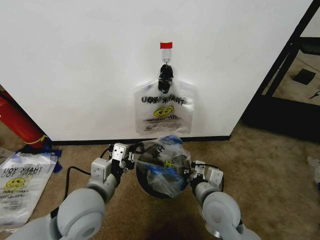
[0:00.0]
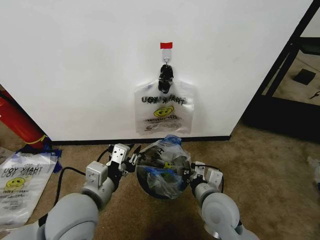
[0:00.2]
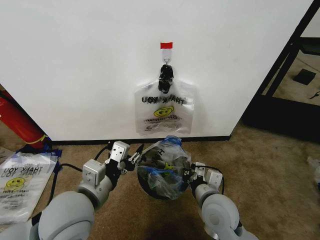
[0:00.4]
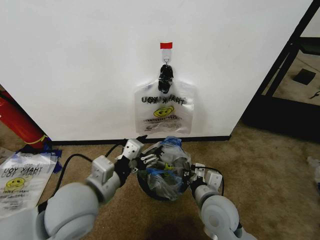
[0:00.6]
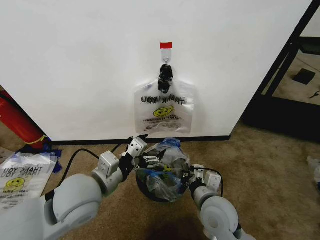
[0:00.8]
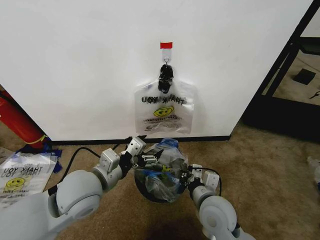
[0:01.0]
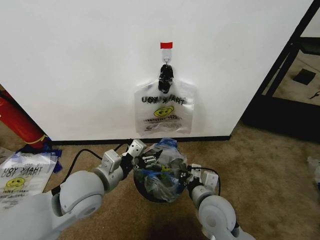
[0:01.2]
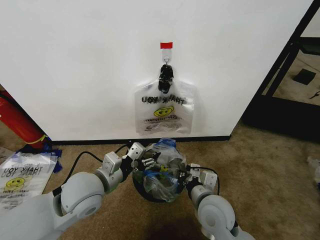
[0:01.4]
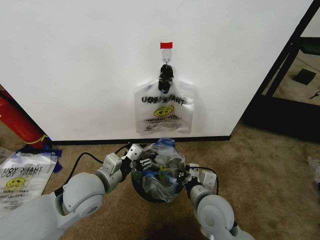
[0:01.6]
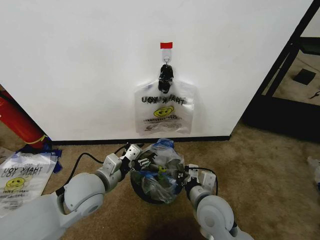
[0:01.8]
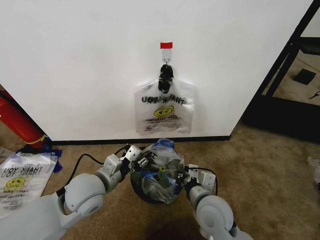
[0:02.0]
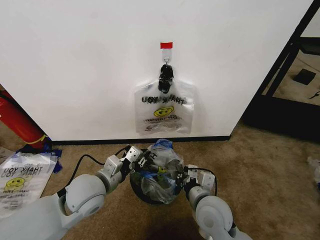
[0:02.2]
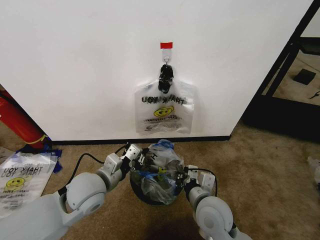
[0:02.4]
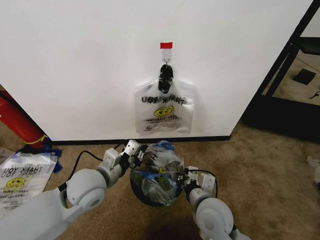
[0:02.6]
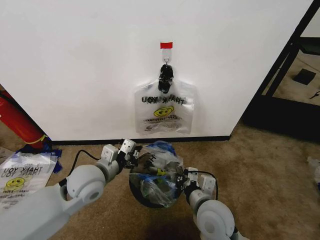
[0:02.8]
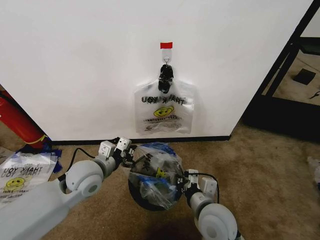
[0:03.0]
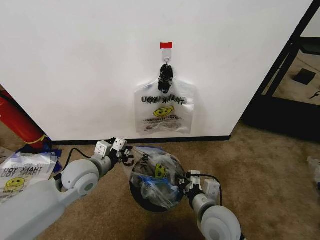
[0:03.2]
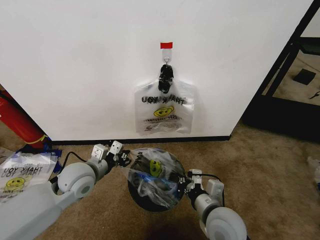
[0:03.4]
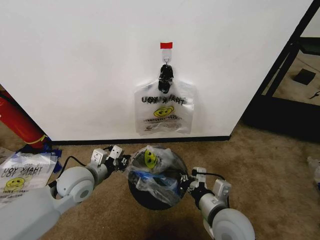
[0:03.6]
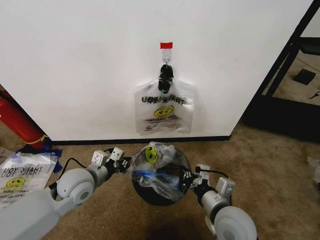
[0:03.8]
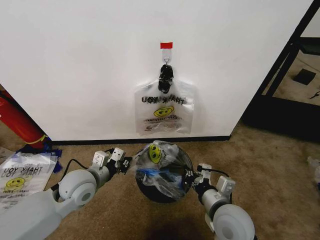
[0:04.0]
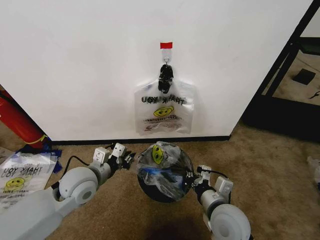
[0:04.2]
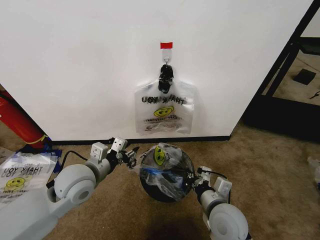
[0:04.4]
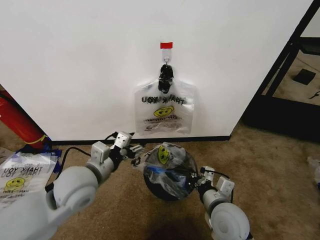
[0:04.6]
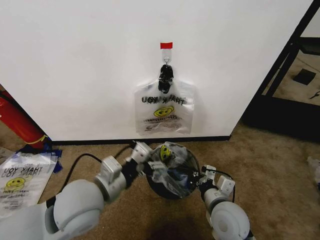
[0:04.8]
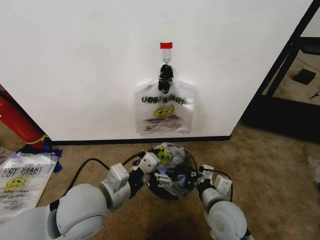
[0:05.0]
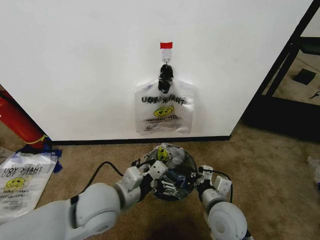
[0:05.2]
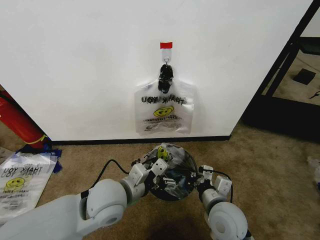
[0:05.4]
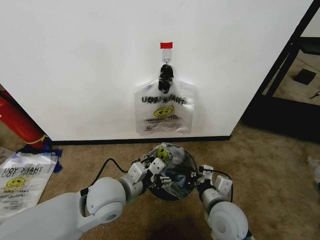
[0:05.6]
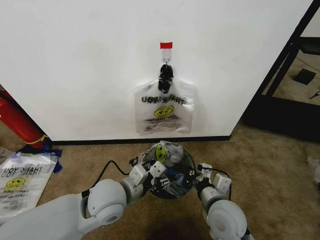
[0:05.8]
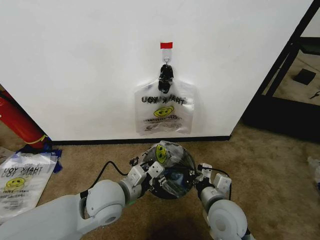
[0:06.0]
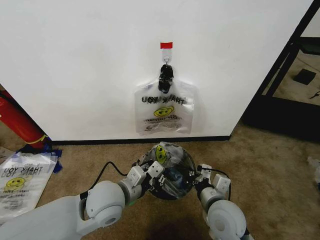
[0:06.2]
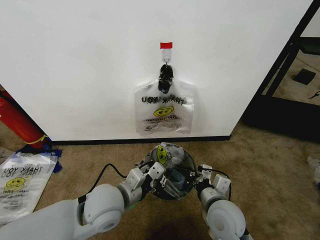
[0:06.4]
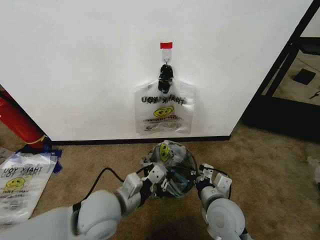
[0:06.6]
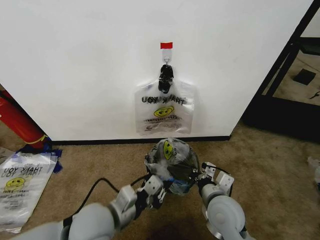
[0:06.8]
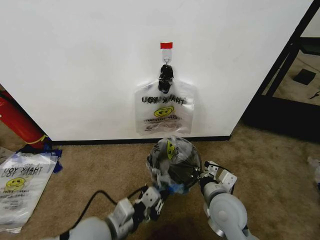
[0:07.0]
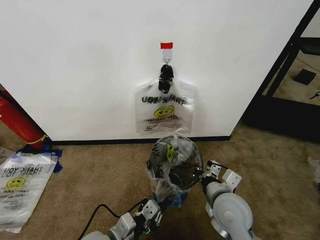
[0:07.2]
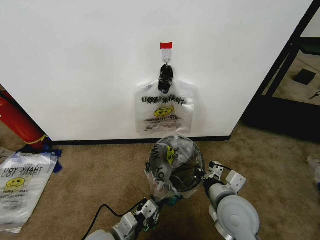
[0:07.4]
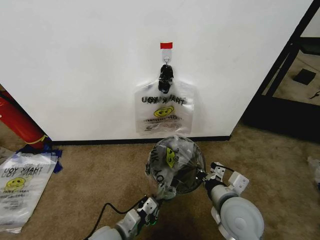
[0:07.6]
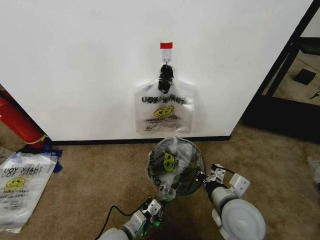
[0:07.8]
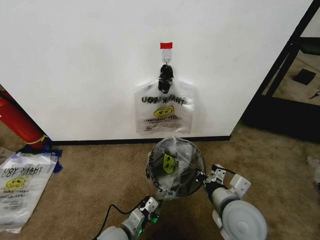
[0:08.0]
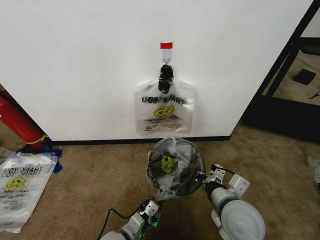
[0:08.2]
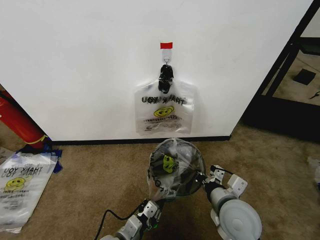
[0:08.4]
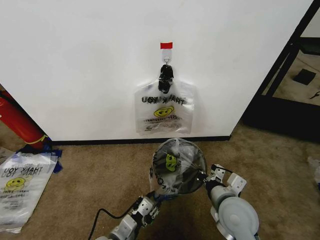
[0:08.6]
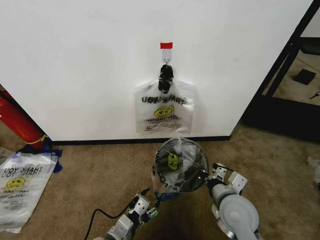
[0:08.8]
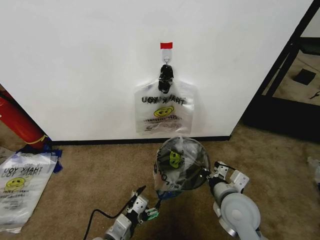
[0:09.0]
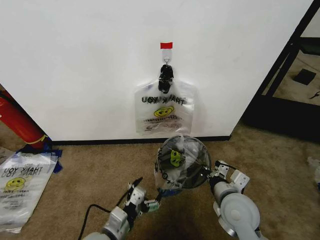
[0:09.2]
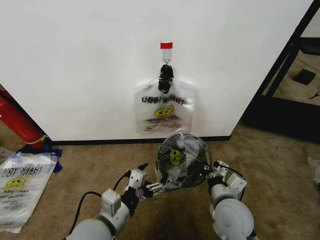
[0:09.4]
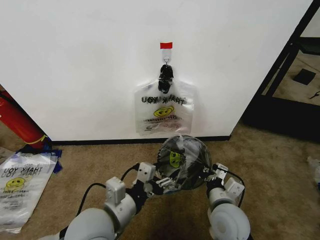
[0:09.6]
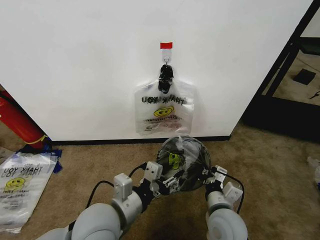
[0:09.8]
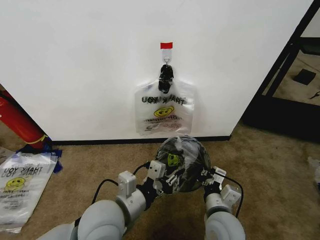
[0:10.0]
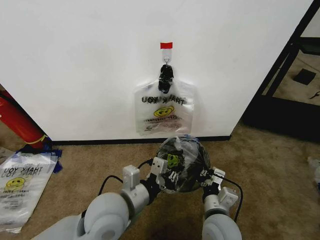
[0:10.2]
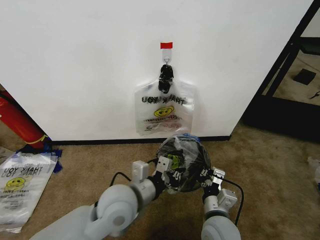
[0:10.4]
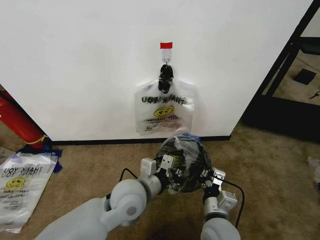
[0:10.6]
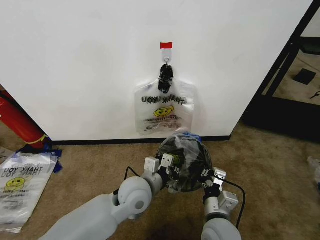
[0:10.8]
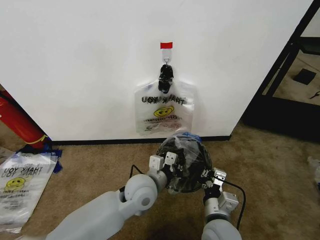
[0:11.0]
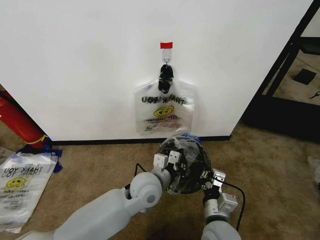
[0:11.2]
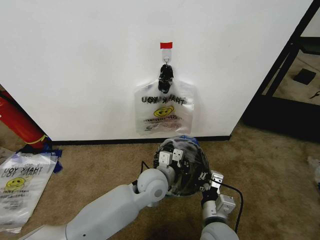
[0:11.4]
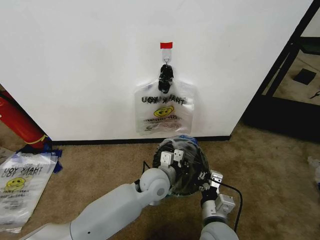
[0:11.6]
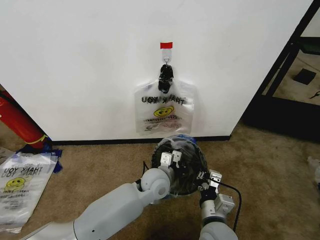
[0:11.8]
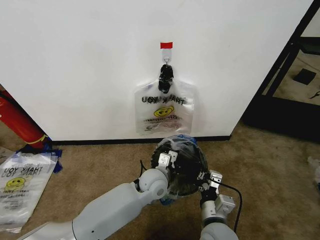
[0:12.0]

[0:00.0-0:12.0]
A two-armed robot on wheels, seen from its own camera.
Task of the whole recording: Pick up the garbage bag from the wall and place it over the trash bin.
0:00.0 to 0:01.6: The left gripper travels forward by some 5 cm, and opens.
0:01.6 to 0:03.0: The left gripper moves forward, approximately 5 cm, and closes up.
0:03.0 to 0:04.4: The left gripper opens up.
0:04.4 to 0:06.0: The left gripper is displaced to the right by about 10 cm, and opens, then closes once more.
0:06.0 to 0:07.6: The left gripper is displaced downward and backward by approximately 15 cm.
0:07.6 to 0:09.0: The left gripper opens its fingers.
0:09.0 to 0:10.4: The left gripper moves upward, forward and to the right, roughly 15 cm, and closes, while the right gripper moves to the left, about 5 cm.
0:10.4 to 0:12.0: The left gripper moves forward, downward and to the right, some 15 cm.

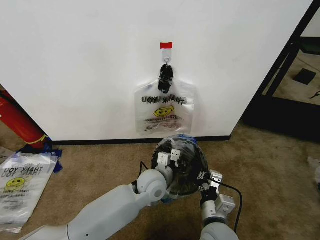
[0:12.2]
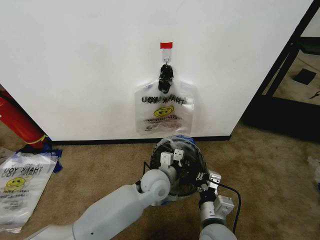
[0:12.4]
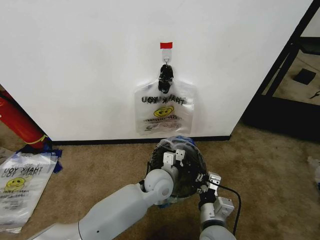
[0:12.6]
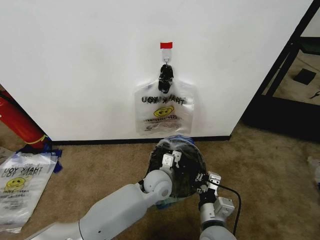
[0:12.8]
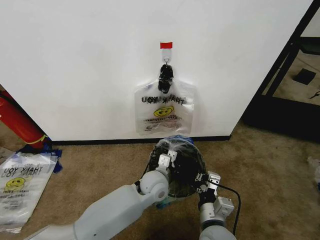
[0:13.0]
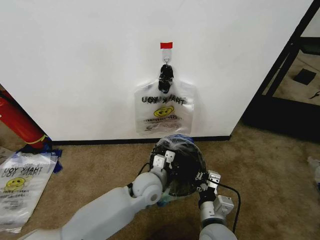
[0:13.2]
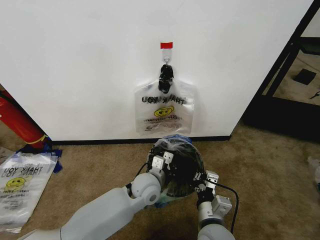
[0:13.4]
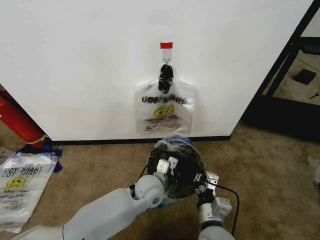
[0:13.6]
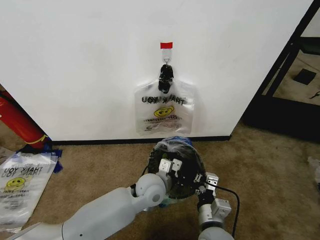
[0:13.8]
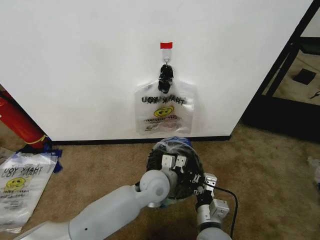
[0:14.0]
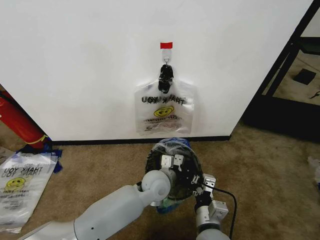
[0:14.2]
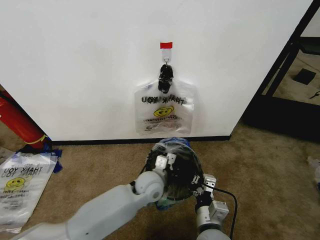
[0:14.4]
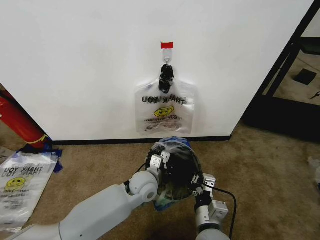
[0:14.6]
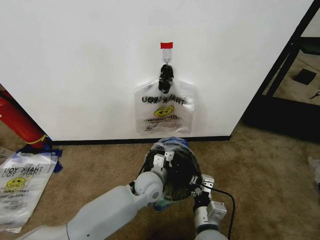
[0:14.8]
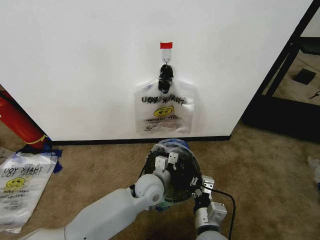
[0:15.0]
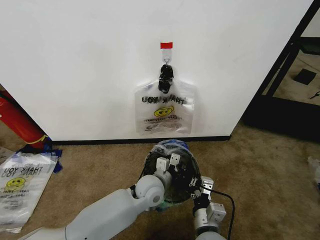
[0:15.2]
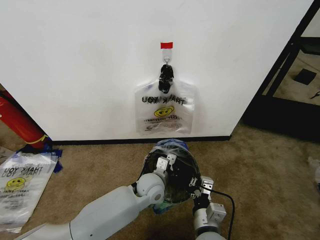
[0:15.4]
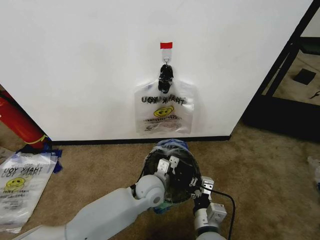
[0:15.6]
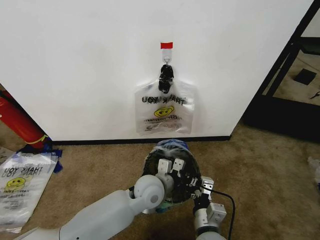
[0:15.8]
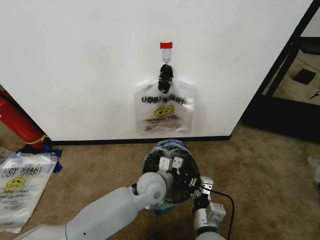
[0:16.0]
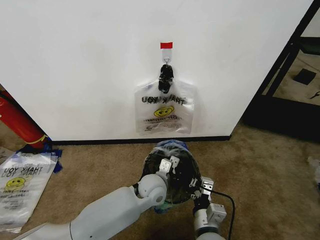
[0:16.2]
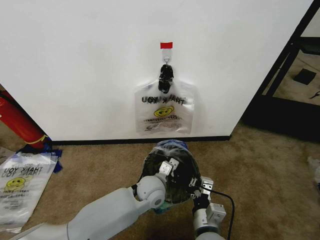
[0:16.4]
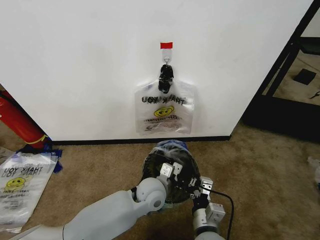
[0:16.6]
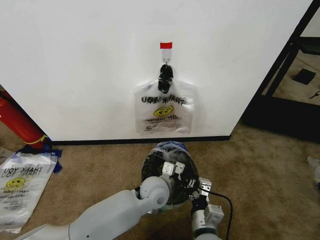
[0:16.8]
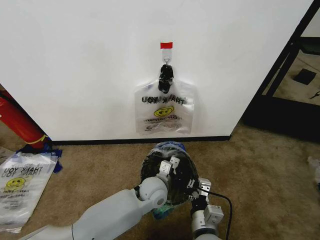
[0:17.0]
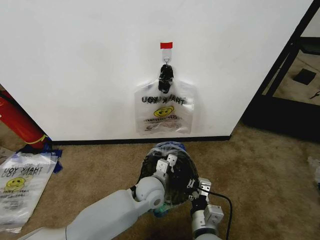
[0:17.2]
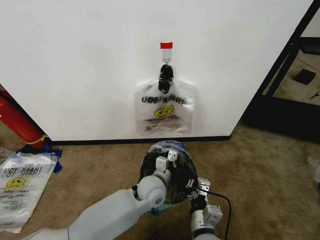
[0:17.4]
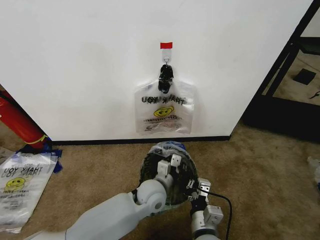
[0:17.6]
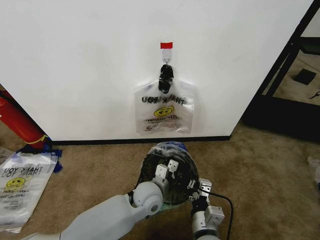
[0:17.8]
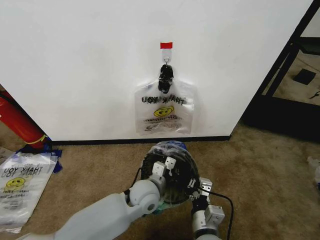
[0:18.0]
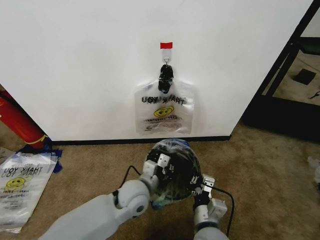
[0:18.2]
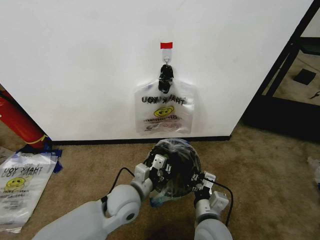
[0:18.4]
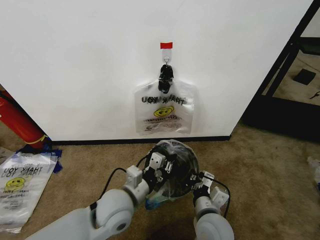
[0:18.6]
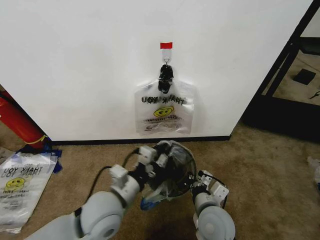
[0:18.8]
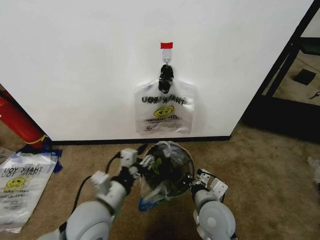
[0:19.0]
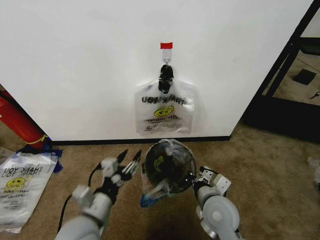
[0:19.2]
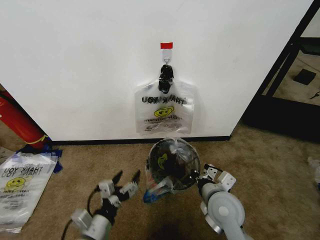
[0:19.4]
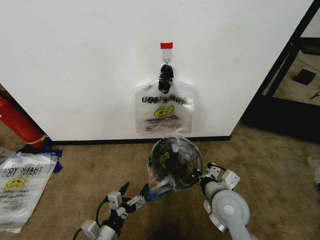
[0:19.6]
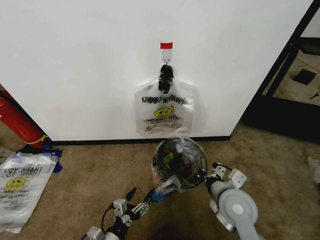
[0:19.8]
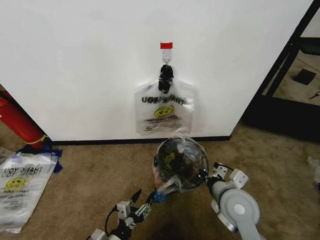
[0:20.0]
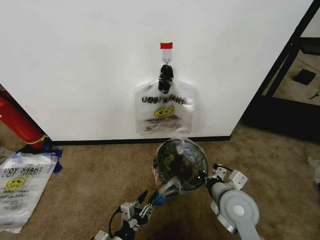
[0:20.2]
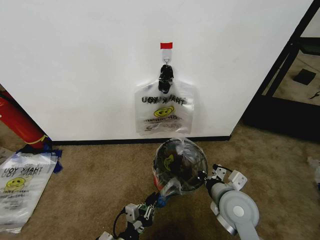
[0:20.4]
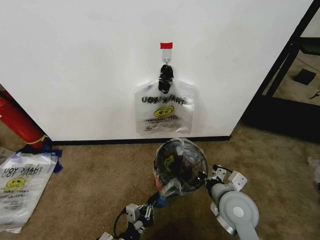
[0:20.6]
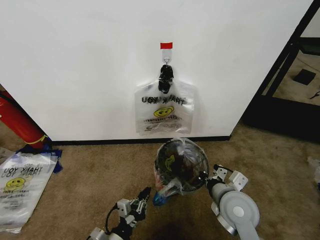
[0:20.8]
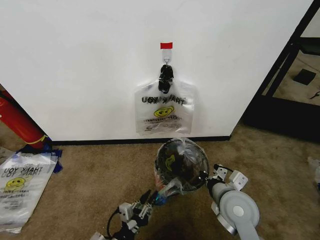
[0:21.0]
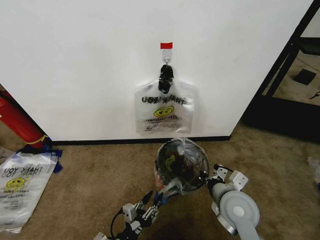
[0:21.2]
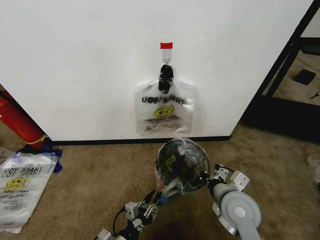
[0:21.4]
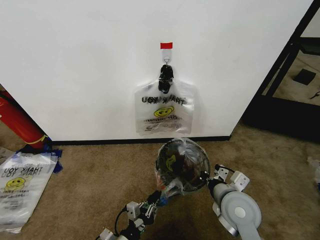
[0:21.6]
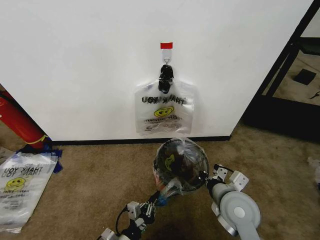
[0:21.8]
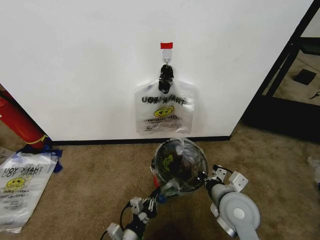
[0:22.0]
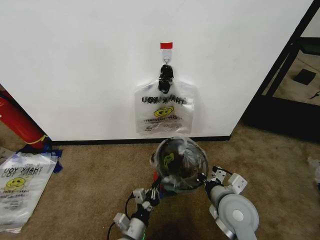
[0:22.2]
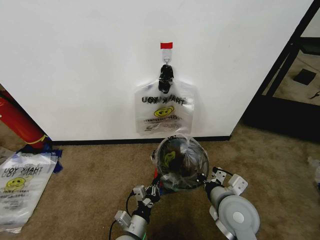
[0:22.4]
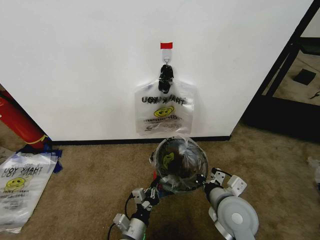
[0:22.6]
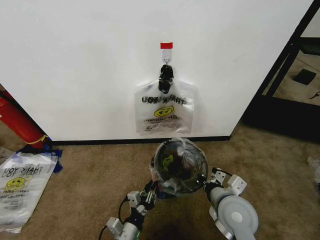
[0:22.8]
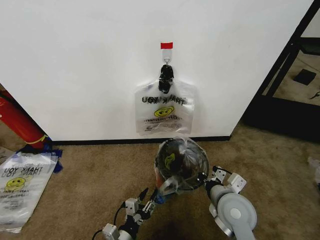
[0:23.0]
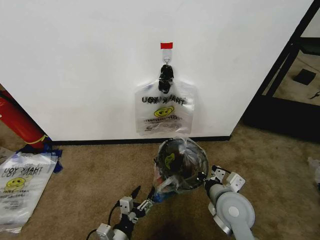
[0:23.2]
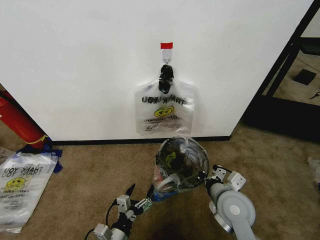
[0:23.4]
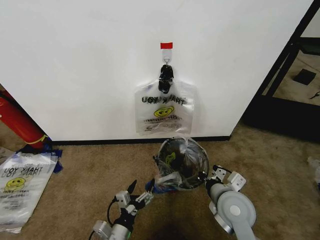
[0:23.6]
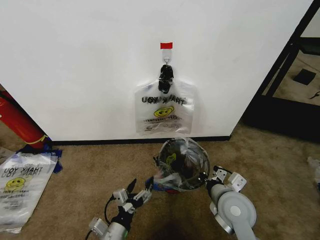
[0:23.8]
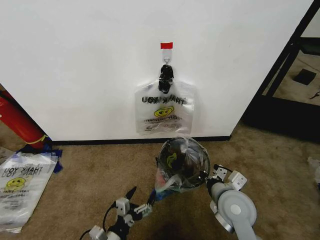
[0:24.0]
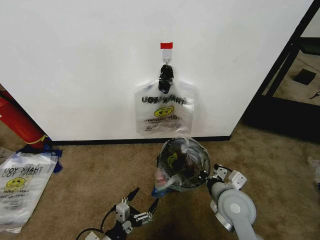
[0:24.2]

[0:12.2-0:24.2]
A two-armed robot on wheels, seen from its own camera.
Task of the whole recording: Pick up the garbage bag from the wall and place it over the trash bin.
0:12.2 to 0:15.2: The grippers make only small movements.
0:16.6 to 0:18.2: The left gripper heads to the left, covering roughly 5 cm.
0:18.2 to 0:19.8: The left gripper is displaced backward, to the left and downward by some 20 cm, and opens up. The right gripper is displaced forward, to the right and upward by roughly 10 cm.
0:19.8 to 0:21.2: The left gripper closes and opens again.
0:21.2 to 0:22.6: The left gripper is displaced forward and to the right by about 10 cm, and closes its fingers.
0:22.6 to 0:24.2: The left gripper travels to the left by roughly 10 cm, and opens up.
